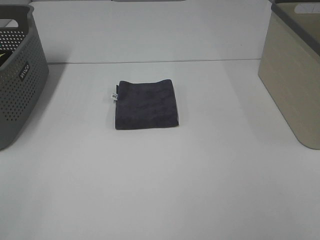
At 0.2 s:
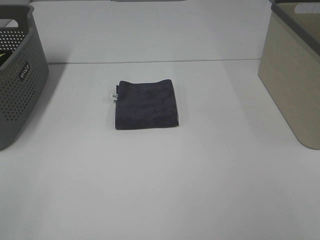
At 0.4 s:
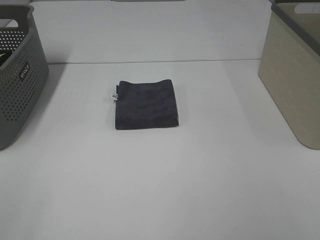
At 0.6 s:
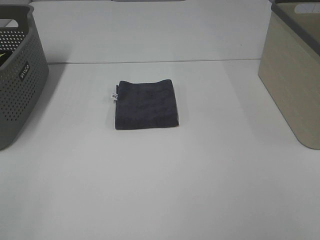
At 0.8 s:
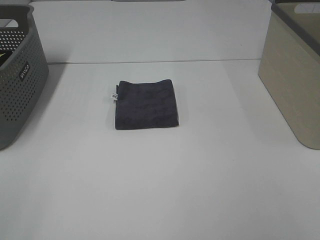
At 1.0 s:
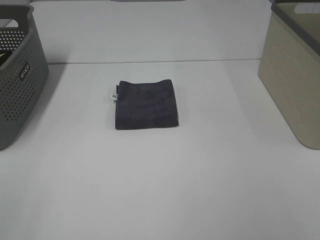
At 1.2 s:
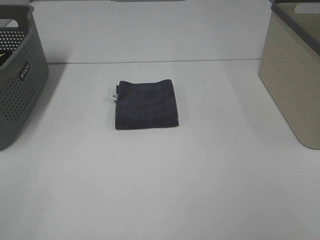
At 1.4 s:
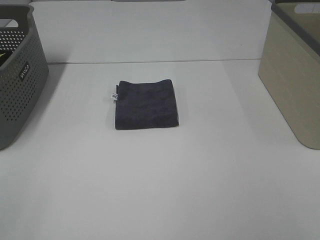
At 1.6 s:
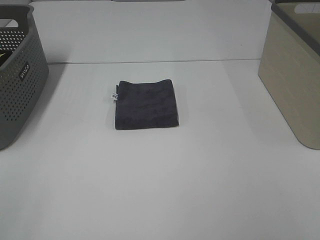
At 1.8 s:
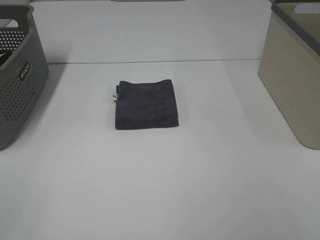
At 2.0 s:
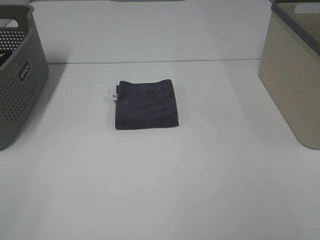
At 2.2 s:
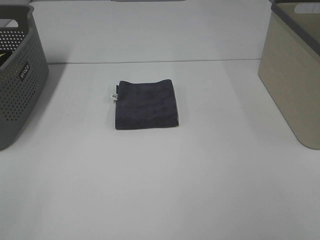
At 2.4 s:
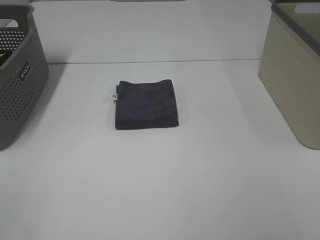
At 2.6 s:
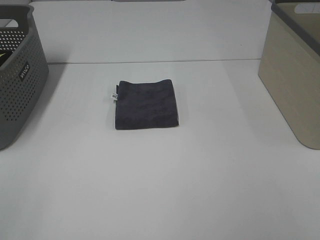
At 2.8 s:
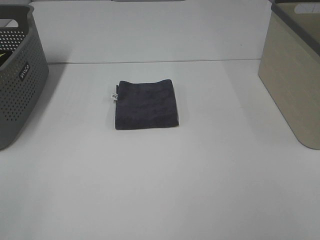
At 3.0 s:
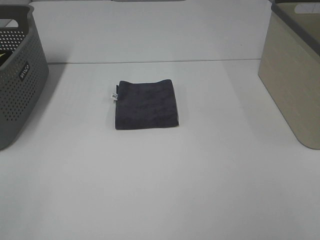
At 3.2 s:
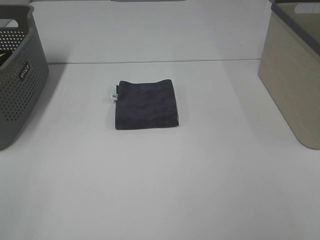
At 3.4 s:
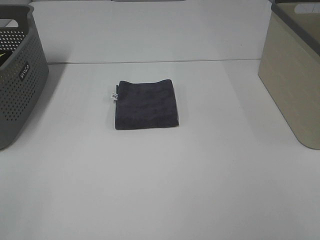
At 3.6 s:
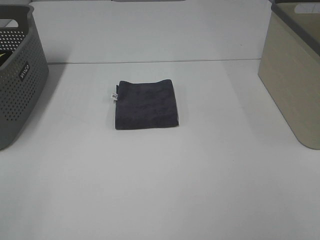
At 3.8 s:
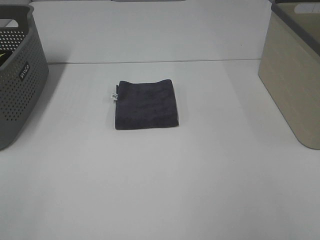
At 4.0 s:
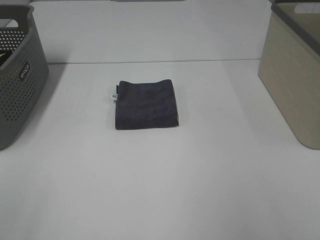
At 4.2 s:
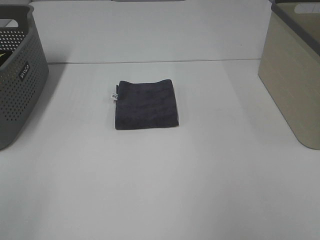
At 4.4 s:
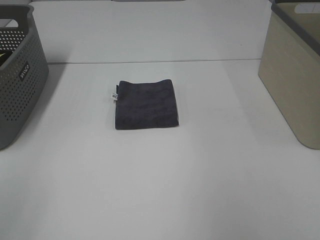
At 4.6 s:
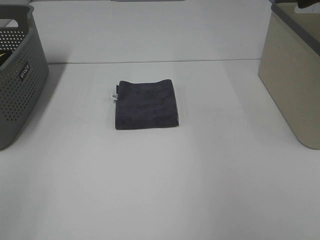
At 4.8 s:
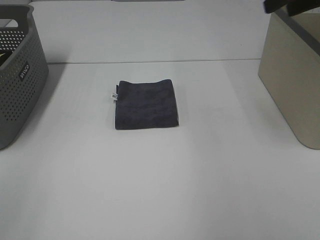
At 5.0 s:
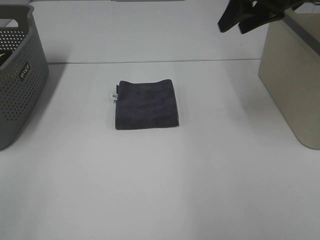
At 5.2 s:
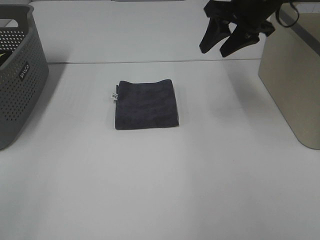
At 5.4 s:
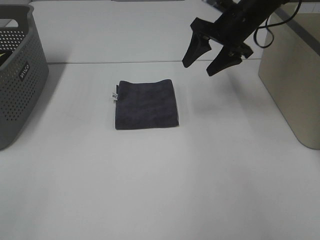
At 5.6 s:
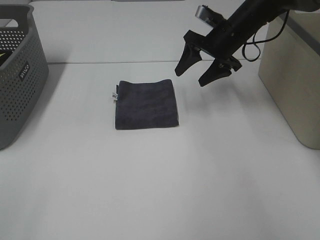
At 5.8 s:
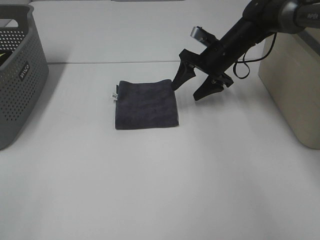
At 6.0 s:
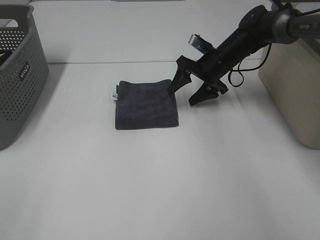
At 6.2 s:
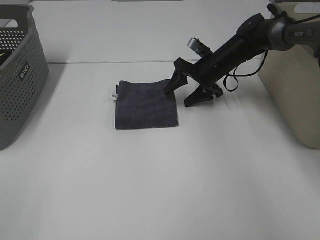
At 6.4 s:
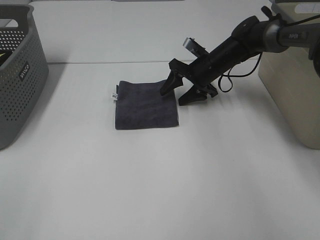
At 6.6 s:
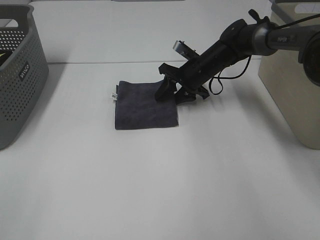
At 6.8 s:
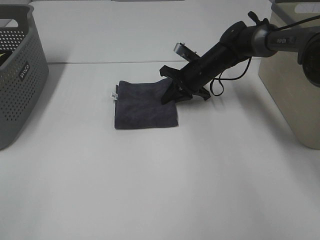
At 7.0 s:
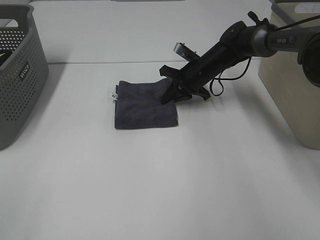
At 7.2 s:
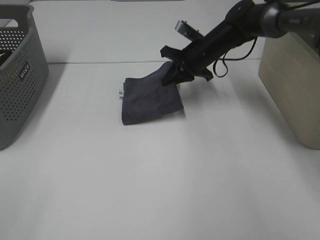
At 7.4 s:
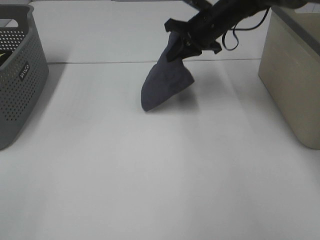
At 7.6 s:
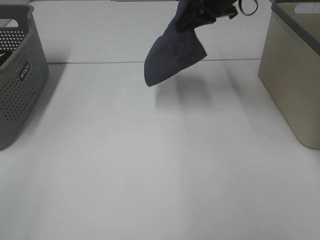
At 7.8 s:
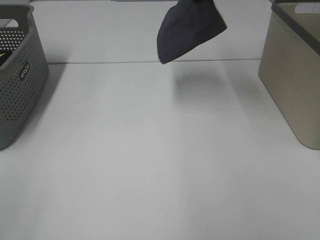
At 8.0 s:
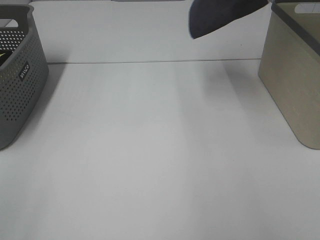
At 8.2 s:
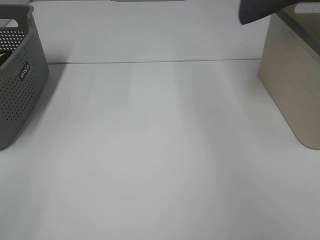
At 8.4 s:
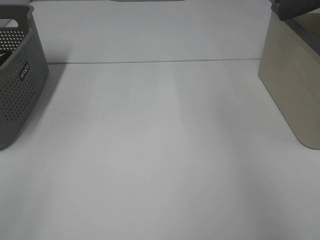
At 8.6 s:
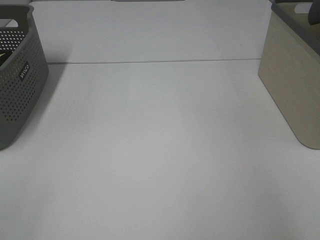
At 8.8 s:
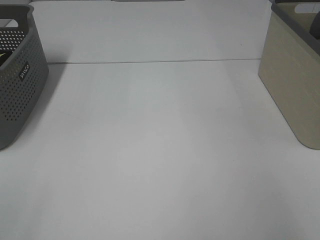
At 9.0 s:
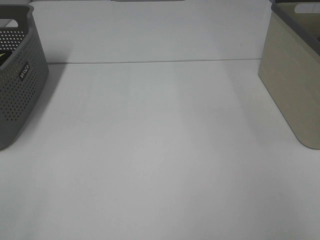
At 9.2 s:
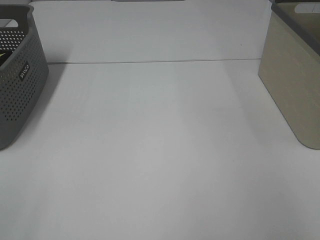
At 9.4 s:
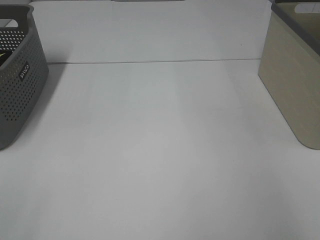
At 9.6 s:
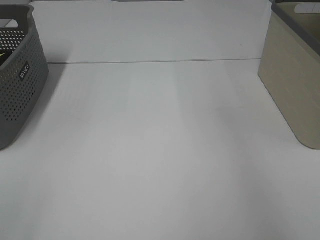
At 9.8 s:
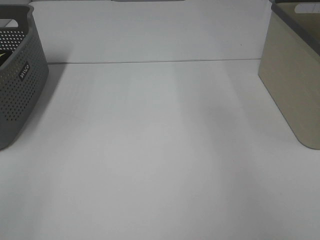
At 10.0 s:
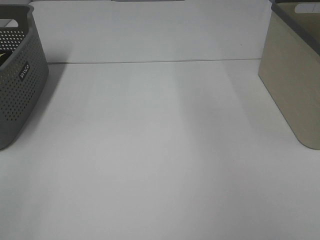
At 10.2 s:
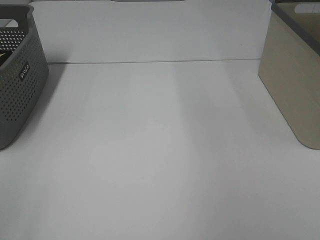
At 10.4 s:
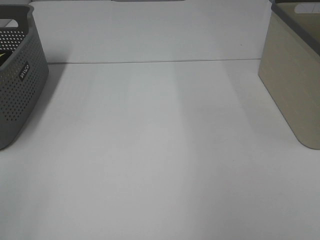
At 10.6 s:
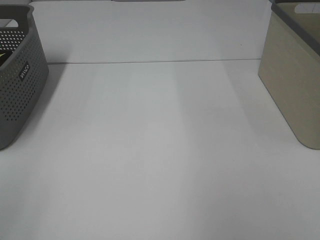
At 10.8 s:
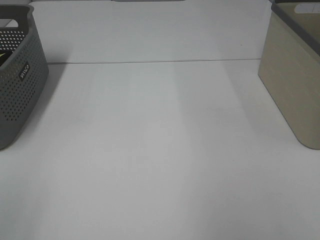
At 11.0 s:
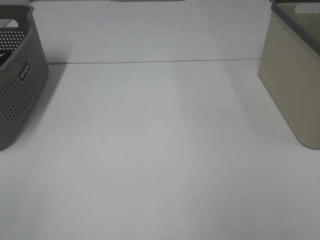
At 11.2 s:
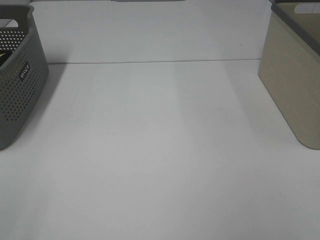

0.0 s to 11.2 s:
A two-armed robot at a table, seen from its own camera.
Step, 0.0 to 6.8 s: Right hand: grab the folded grey towel.
Step, 7.0 to 9.2 s: Right hand: place the grey towel in right basket.
0.0 to 3.2 s: Neither gripper changes place.
3.2 to 4.8 s: The right gripper heads forward, covering some 35 cm.
4.8 to 6.4 s: The right gripper travels downward, forward and to the left by some 30 cm.
6.4 to 8.0 s: The right gripper travels upward by about 30 cm, and closes.
8.0 to 9.6 s: The right gripper shifts about 15 cm to the right, and opens its fingers.

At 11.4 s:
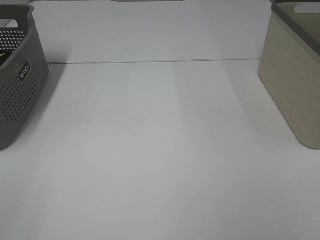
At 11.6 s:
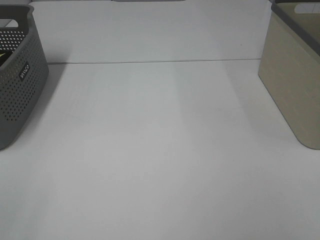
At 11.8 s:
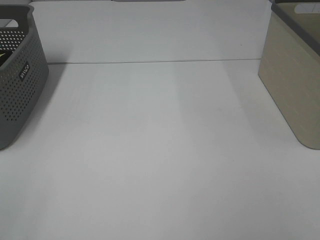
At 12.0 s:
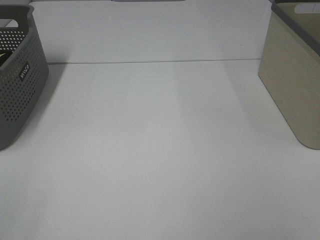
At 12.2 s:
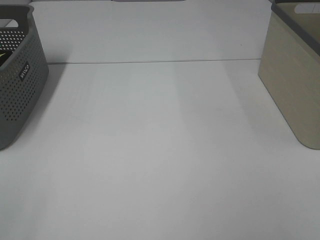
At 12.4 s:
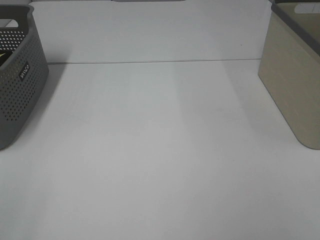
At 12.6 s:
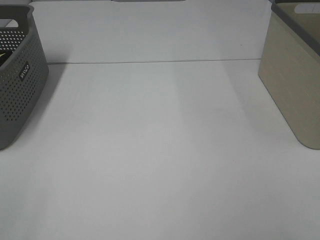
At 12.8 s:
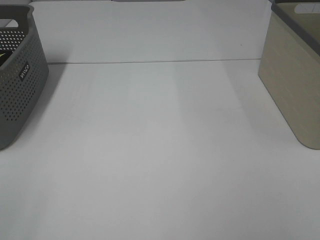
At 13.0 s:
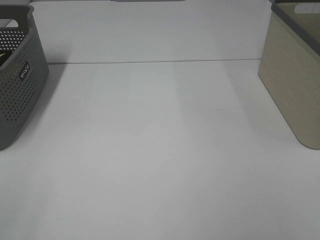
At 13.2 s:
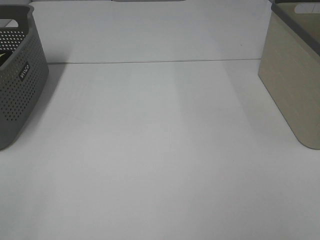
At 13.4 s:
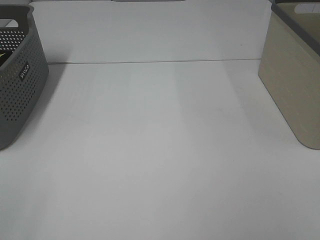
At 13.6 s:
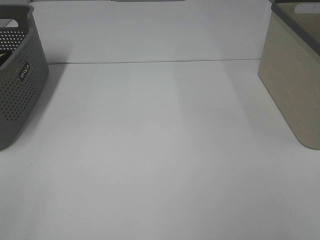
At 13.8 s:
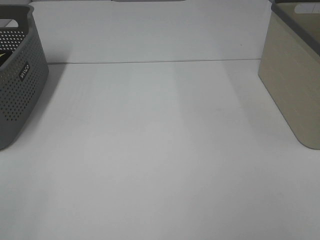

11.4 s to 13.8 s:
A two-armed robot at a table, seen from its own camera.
12.6 to 13.8 s: Both grippers stay about where they are.

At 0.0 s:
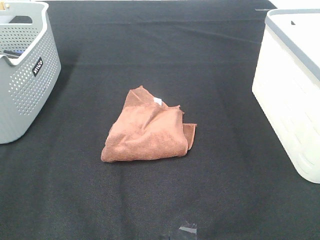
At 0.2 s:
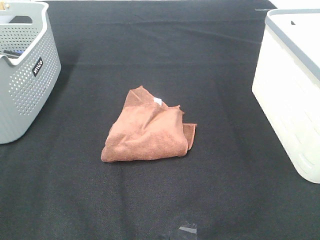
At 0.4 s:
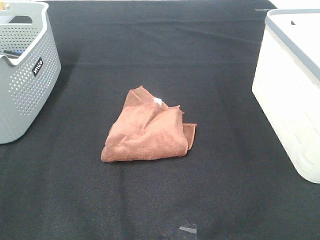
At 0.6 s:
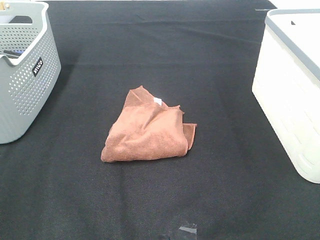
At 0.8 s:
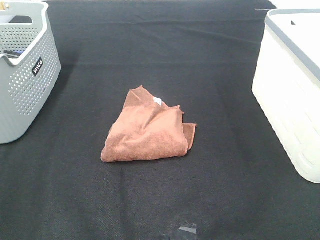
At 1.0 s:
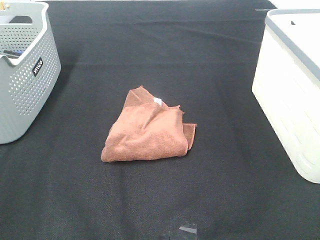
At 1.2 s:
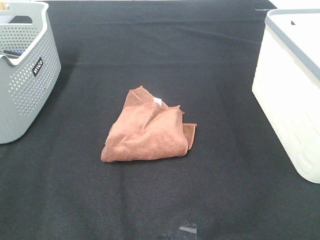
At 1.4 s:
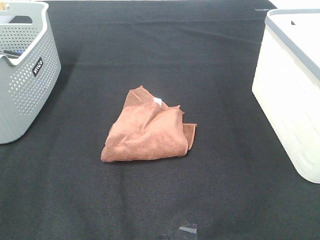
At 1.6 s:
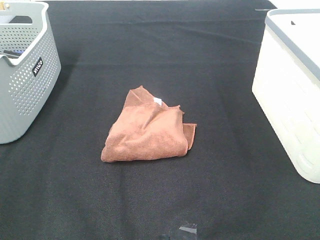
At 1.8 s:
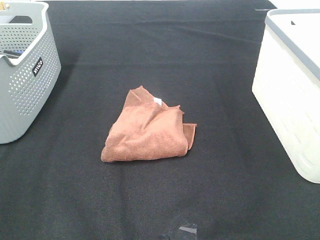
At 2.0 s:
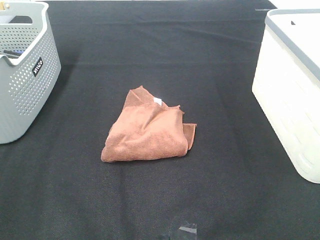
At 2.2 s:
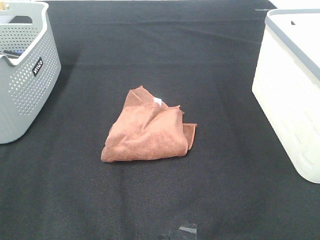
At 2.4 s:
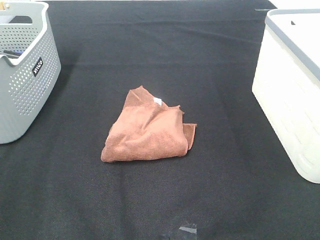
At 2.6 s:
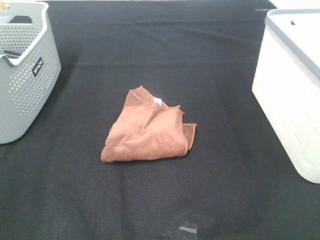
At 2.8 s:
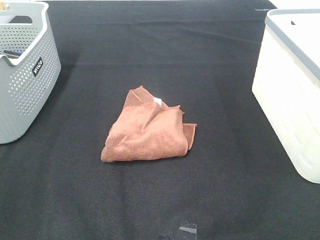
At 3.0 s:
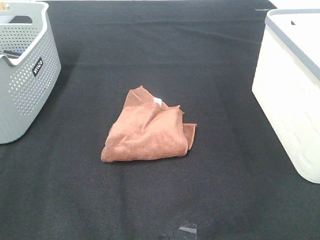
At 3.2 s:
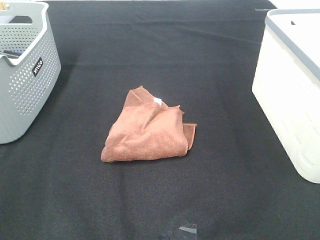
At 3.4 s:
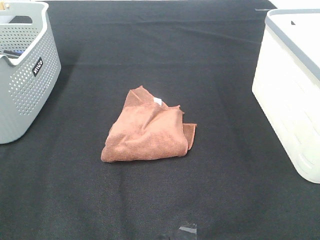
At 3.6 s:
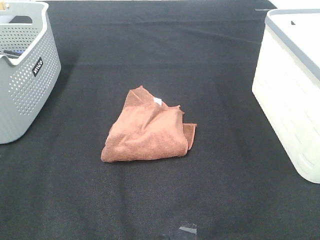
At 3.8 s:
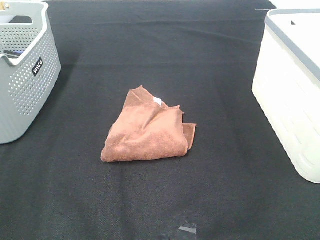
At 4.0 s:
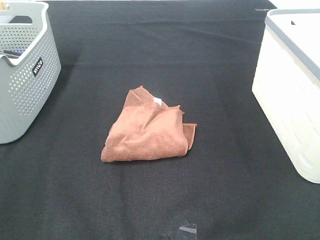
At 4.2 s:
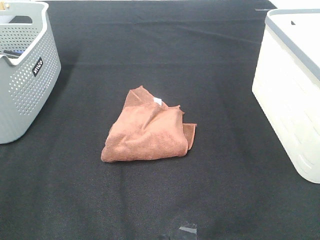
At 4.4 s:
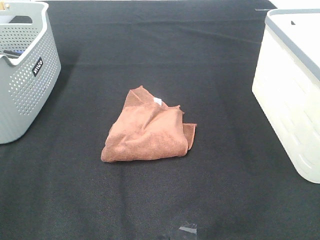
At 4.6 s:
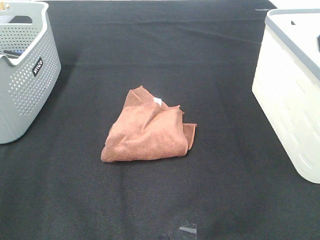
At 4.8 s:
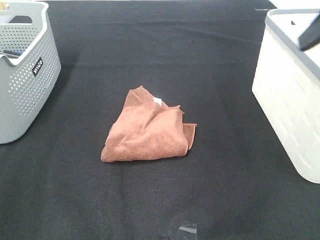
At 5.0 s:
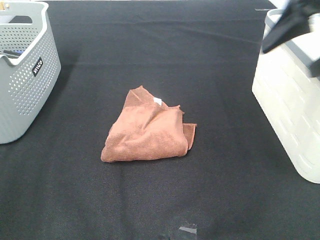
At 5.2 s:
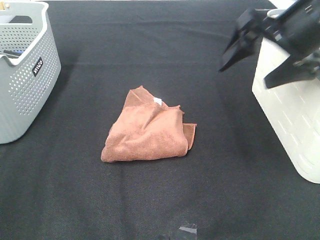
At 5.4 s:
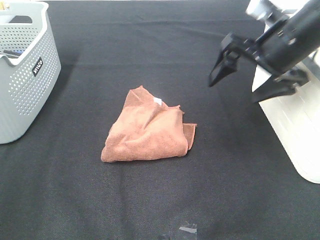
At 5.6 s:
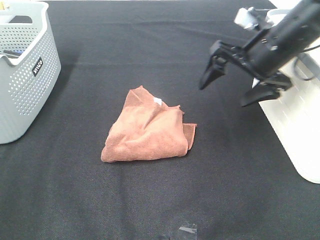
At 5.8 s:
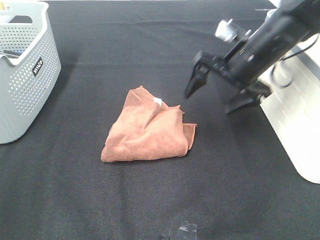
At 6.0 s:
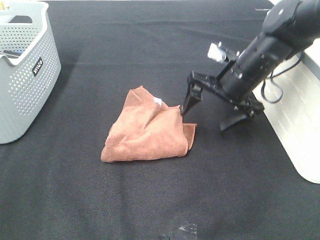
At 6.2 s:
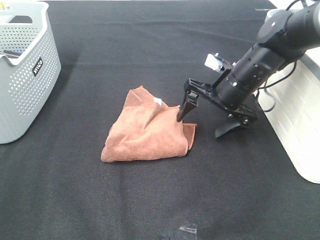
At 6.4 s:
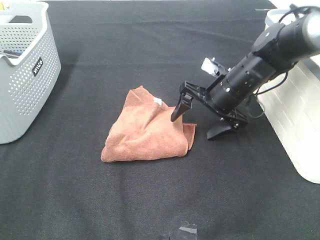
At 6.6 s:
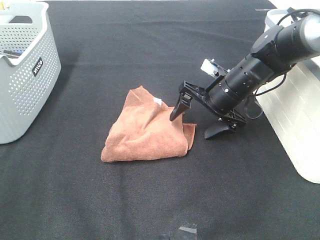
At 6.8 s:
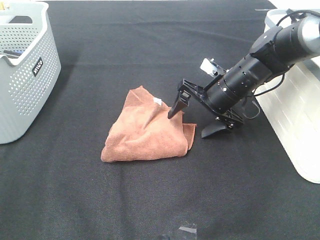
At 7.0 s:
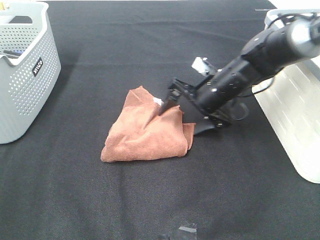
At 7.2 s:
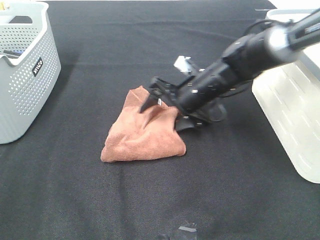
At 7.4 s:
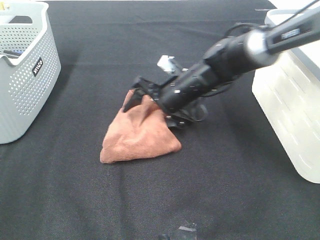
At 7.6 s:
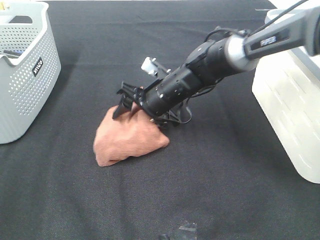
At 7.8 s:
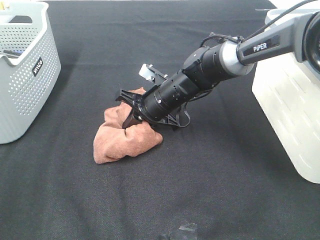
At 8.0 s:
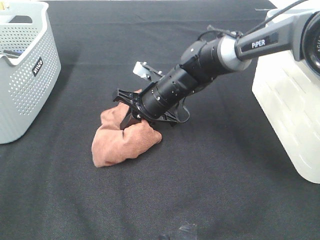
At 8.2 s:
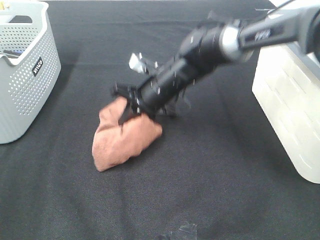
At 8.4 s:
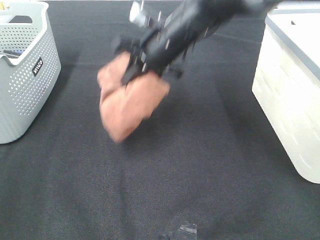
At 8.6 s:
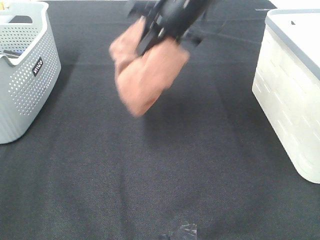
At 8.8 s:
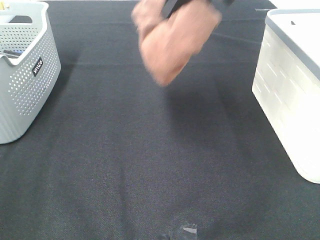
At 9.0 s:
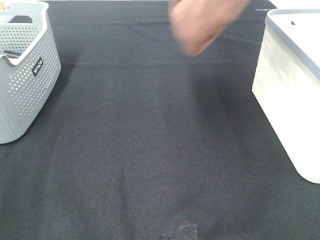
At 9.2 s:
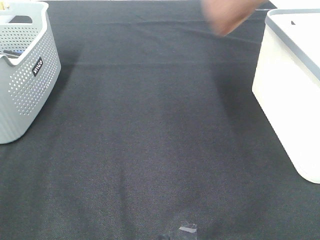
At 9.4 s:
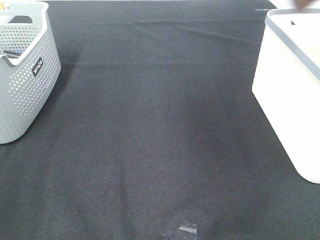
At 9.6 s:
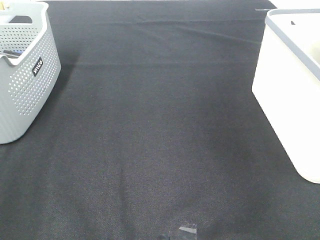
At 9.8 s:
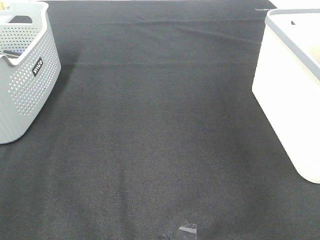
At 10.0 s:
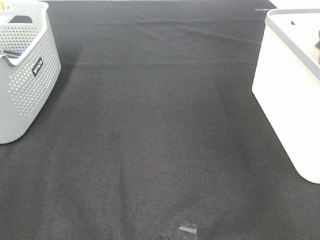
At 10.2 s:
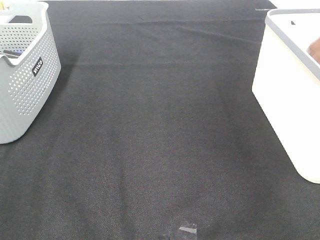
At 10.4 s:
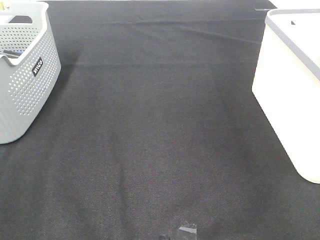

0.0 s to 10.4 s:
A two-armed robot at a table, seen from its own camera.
Step, 0.0 to 8.0 s: Right hand: grab the folded brown towel.
0.0 to 3.0 s: Neither gripper changes place.
4.4 to 6.0 s: The right gripper is displaced downward, forward and to the left by roughly 35 cm.
6.0 to 7.4 s: The right gripper shifts about 10 cm to the left and downward.
7.4 to 9.0 s: The right gripper goes roughly 30 cm upward, and closes its fingers.
9.0 to 10.4 s: The right gripper goes about 25 cm to the right and downward, and opens.
